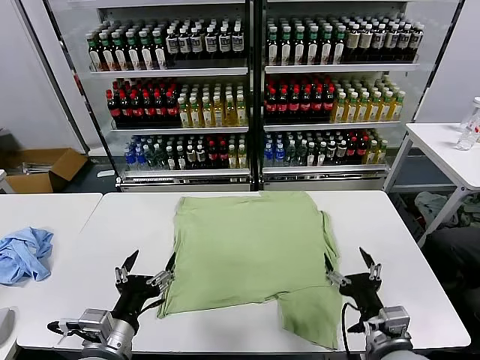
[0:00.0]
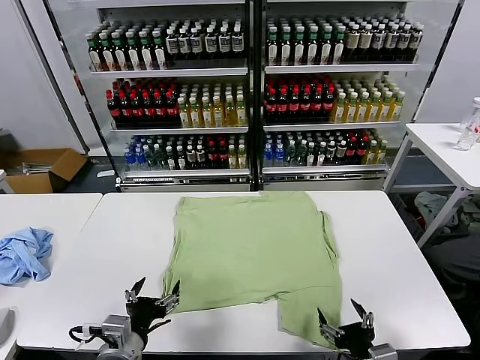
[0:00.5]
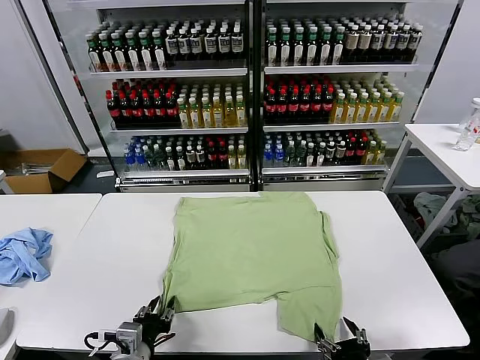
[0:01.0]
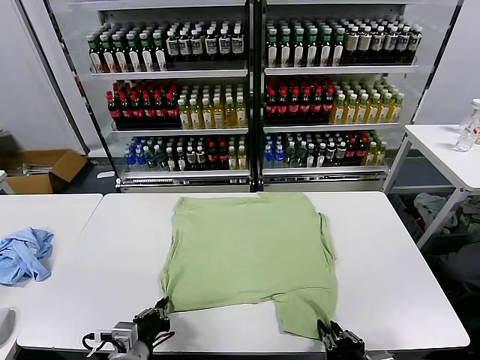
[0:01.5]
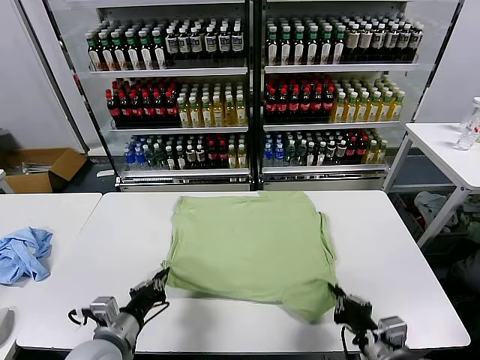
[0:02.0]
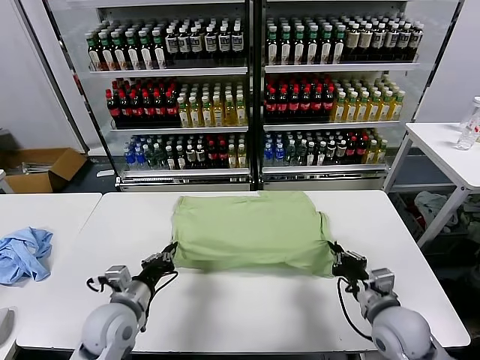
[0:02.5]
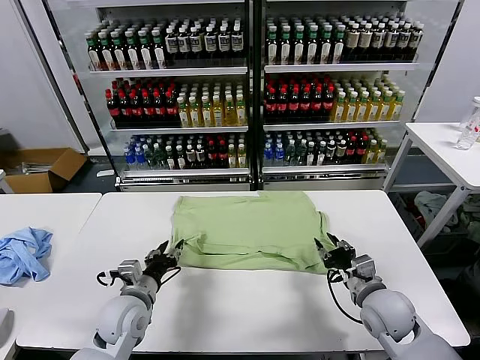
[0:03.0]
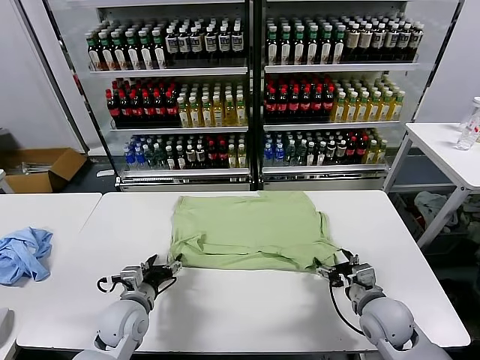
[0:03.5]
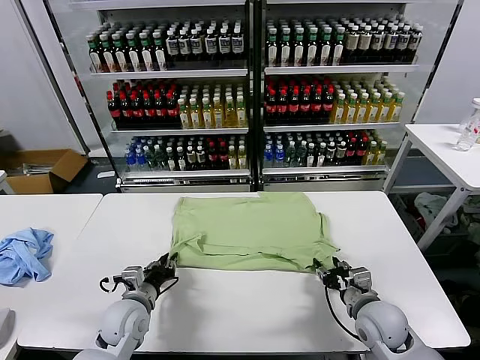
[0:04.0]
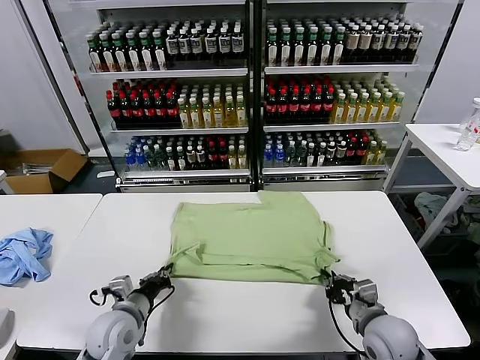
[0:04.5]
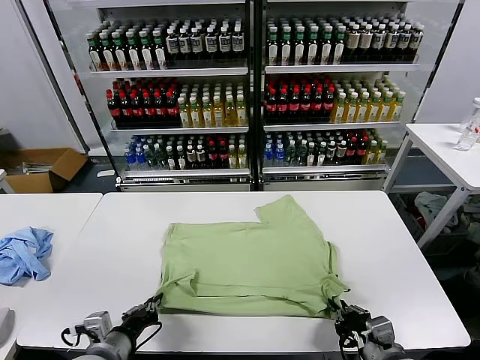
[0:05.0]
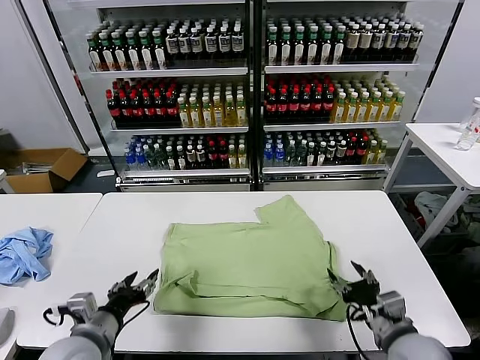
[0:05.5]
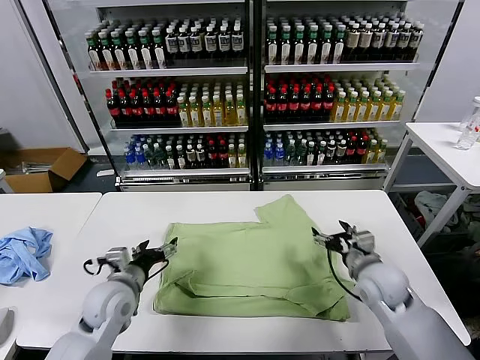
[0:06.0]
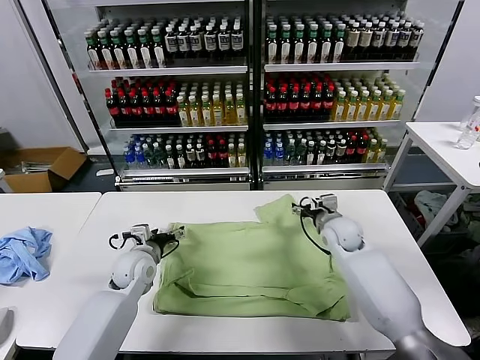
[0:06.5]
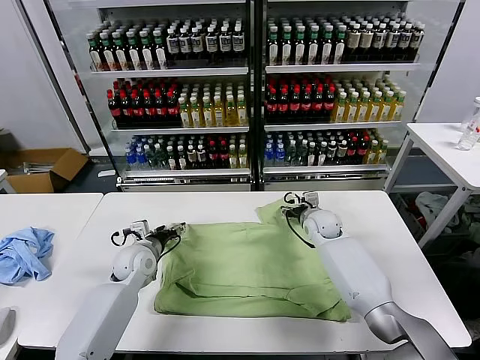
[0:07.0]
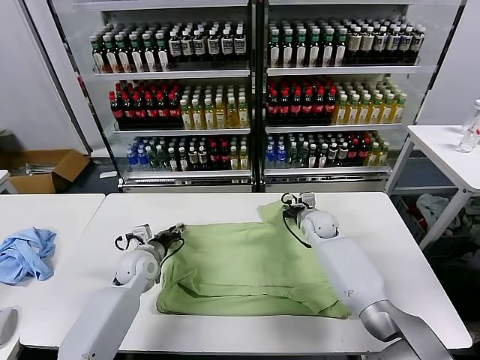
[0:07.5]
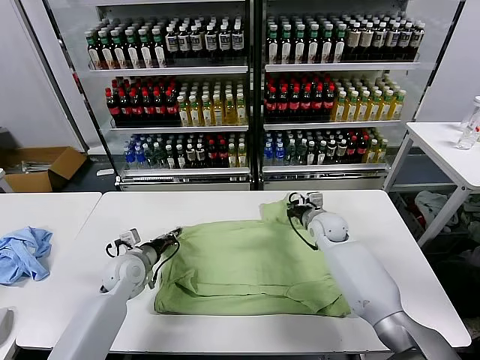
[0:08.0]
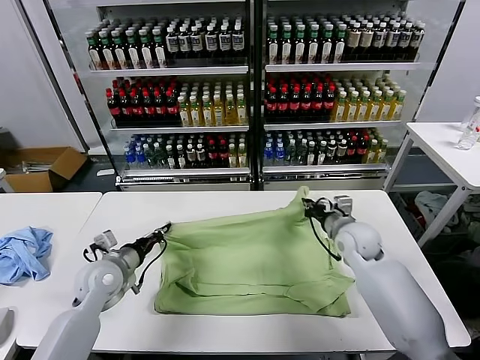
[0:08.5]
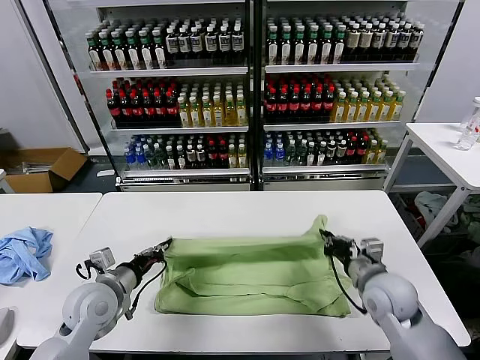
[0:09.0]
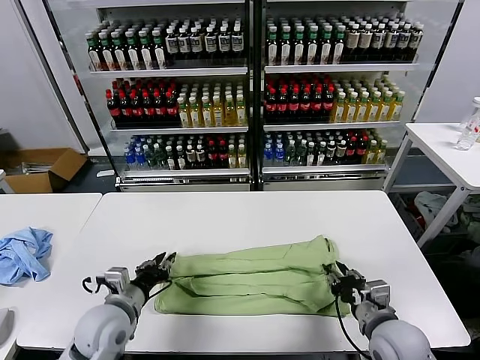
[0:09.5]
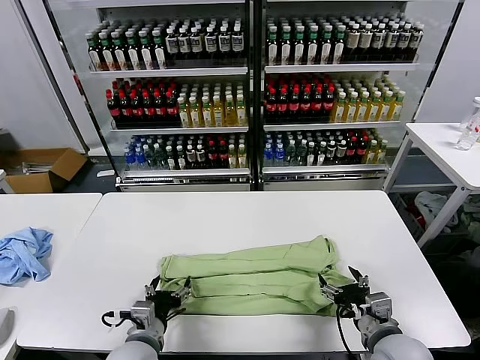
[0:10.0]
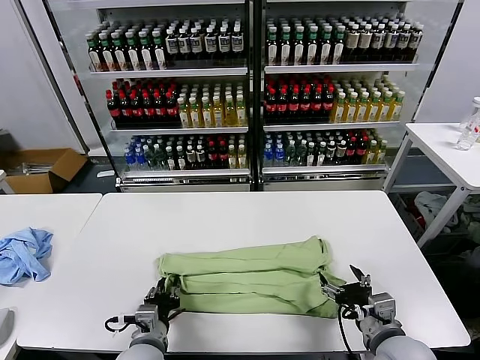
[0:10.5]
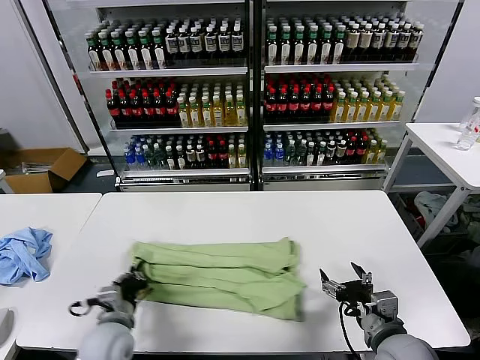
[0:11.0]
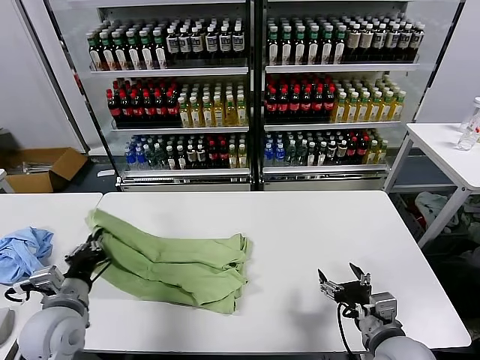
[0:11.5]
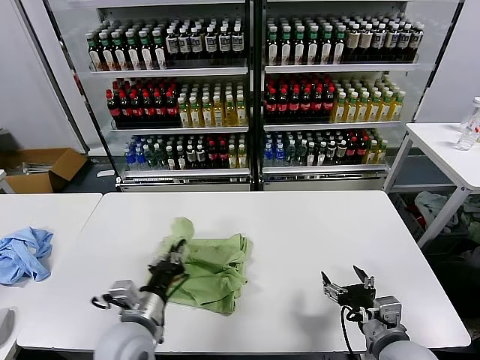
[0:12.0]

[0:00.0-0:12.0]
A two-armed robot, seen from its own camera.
Task of the whole recording: fold and organize the clothes.
Step, 0:00.0 to 0:01.5: use both grippers simultaneously to clamp the lower edge of the clothing fabric.
Step, 0:02.0 to 0:02.5: use both grippers to drag the lower edge of the fabric forward and fold it over the upper edge.
Step, 0:03.0 to 0:05.0: Drag the clothes downward with both gripper.
Step, 0:05.5 to 0:07.5: use both grippers simultaneously to clamp the upper edge of the clothing fabric.
Step, 0:08.0 to 0:09.5: use both grippers to drag the upper edge of the fabric backward and fold it over the lower edge.
Step, 0:10.0 to 0:10.5: use the left gripper to clamp the left edge of the fabric.
0:02.0 to 0:04.0: The two grippers go some 10 cm forward and downward. The right gripper opens; the left gripper opens, then closes once more.
0:04.0 to 0:06.0: The right gripper travels forward and upward by approximately 10 cm, and opens up; the left gripper heads upward, covering about 5 cm, moves roughly 15 cm backward and comes back, and opens its fingers.
0:06.0 to 0:08.0: The left gripper moves forward, approximately 10 cm, and closes its fingers. Meanwhile the right gripper moves forward, about 15 cm, and closes up.
0:08.0 to 0:10.0: The right gripper heads backward, covering roughly 30 cm, and opens up; the left gripper travels backward and to the right by about 20 cm, and opens up.
0:10.0 to 0:12.0: The left gripper is displaced upward by about 5 cm, travels to the left and back again, about 15 cm each way, and closes its fingers.

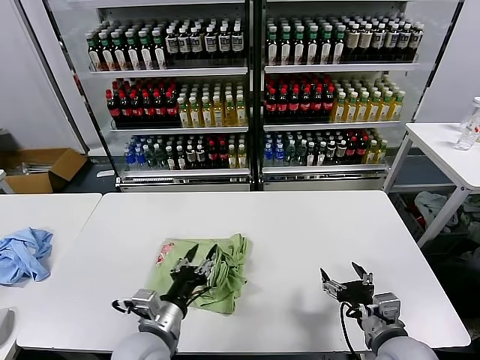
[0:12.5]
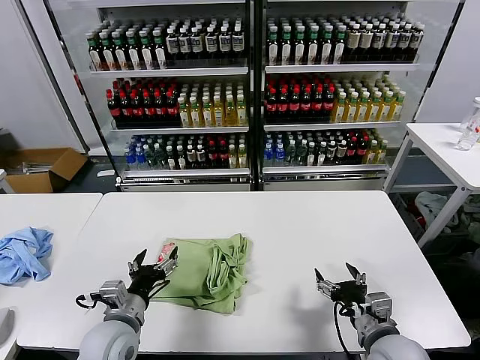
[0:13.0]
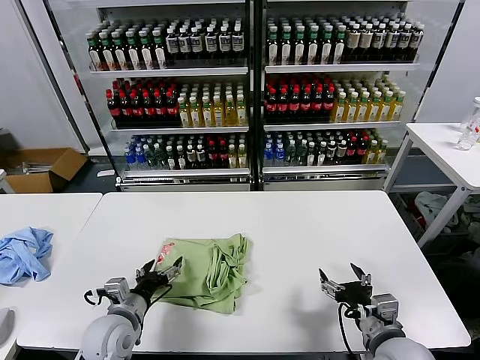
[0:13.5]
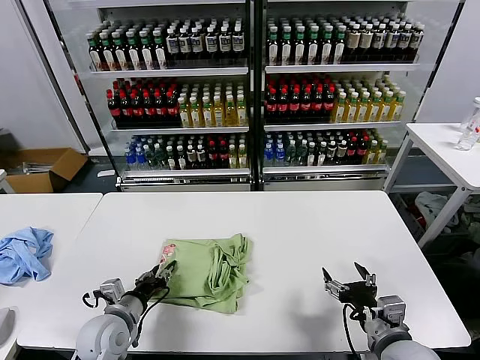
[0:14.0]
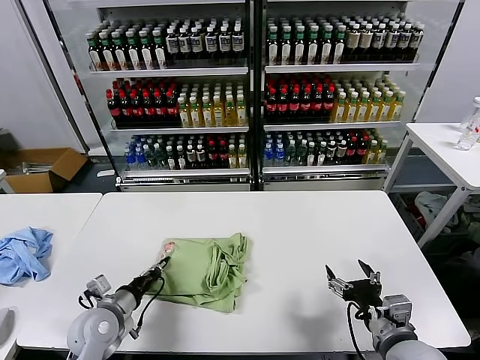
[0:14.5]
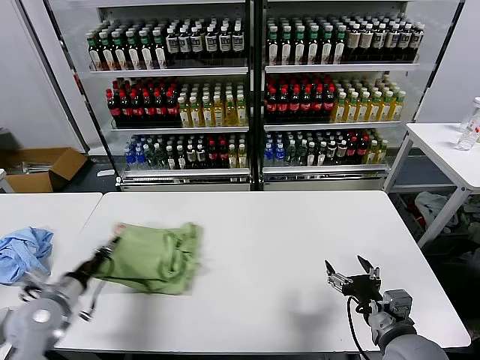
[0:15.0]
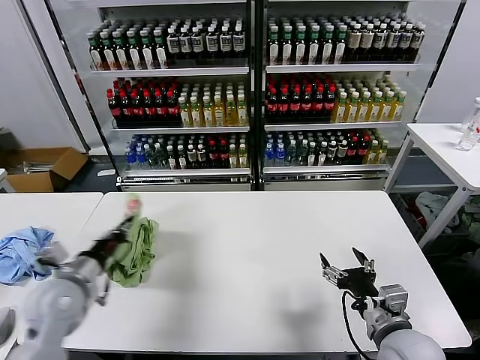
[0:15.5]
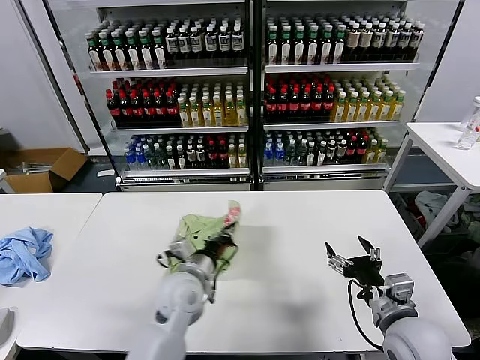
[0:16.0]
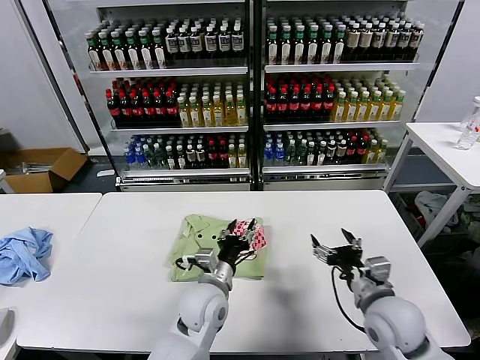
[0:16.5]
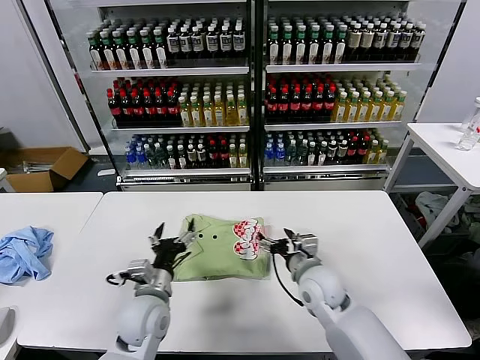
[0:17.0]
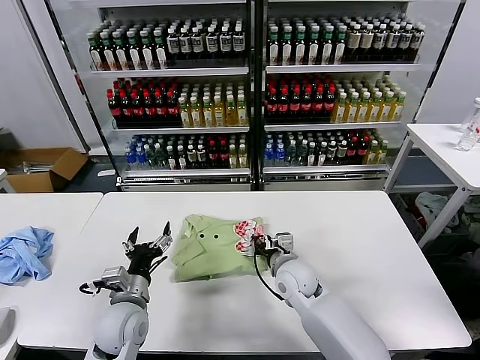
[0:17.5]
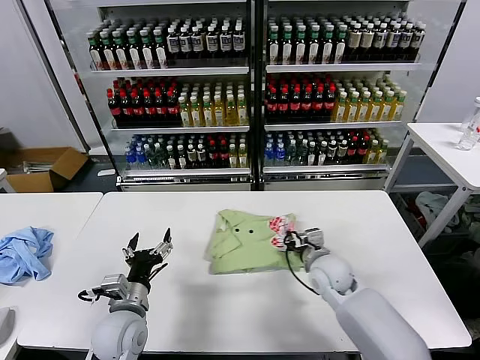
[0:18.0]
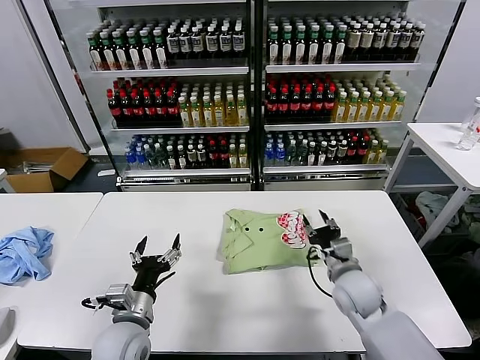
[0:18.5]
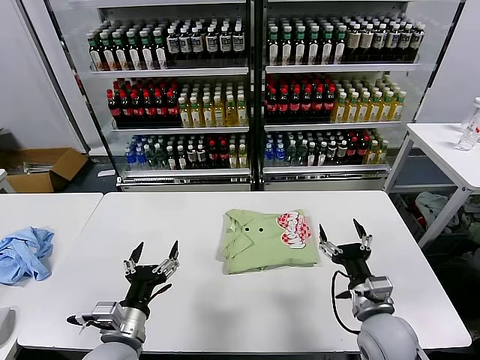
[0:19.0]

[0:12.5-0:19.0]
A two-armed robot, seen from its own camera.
Task of the whole recording: fold and organize the clothes.
Step, 0:12.5 to 0:16.0: Flip the folded clothes over with left gripper.
Step, 0:16.5 to 0:18.0: Drag the clothes to the center of the table.
0:12.5 to 0:14.5: The left gripper heads to the left, forward and downward, covering roughly 15 cm, and closes up.
0:14.5 to 0:17.0: The right gripper goes roughly 20 cm forward and to the left; the left gripper goes left and right, about 35 cm each way, reversing 2 times, and opens up.
0:17.0 to 0:19.0: The right gripper travels backward and to the right by roughly 15 cm, and closes and opens again, while the left gripper shifts some 10 cm backward.

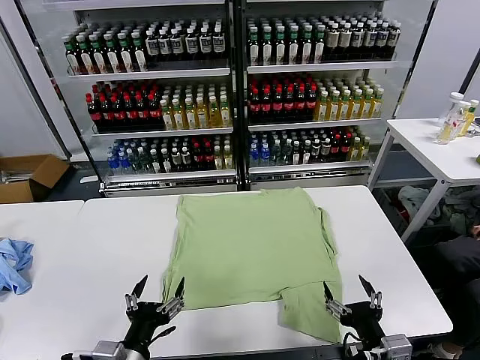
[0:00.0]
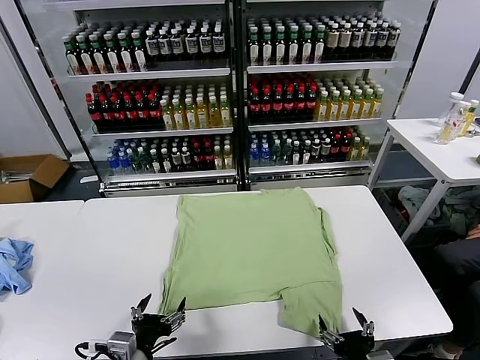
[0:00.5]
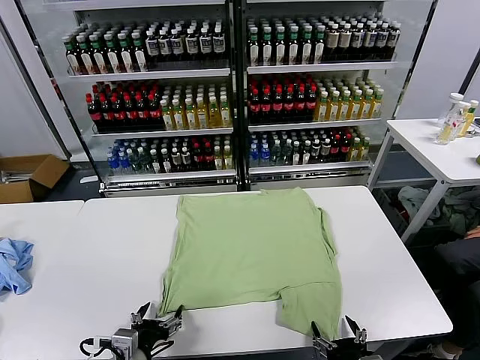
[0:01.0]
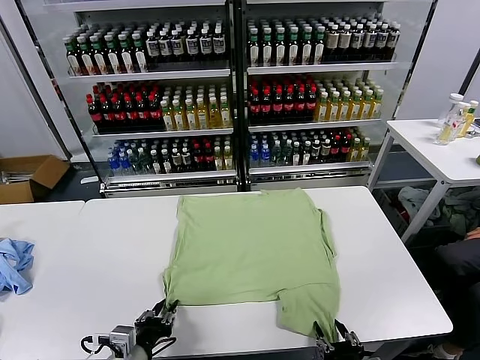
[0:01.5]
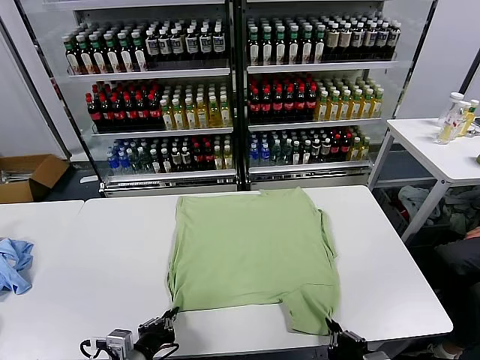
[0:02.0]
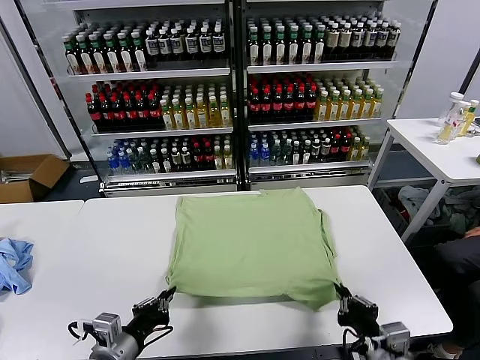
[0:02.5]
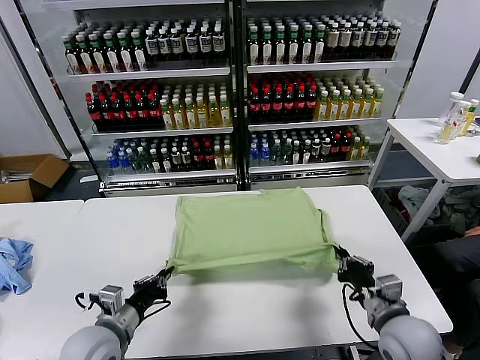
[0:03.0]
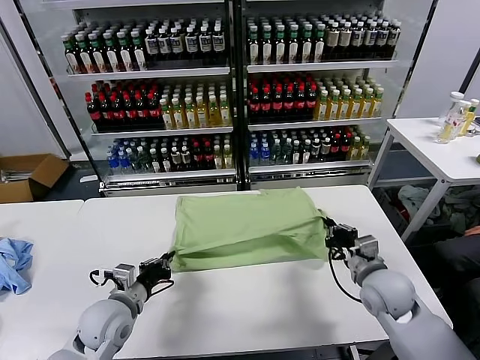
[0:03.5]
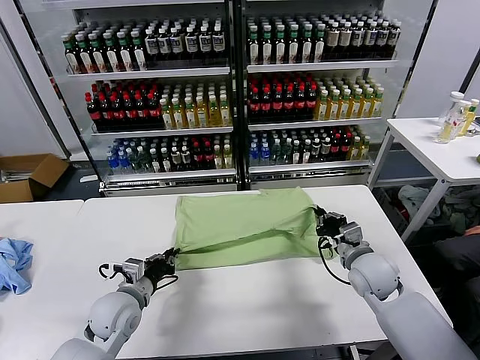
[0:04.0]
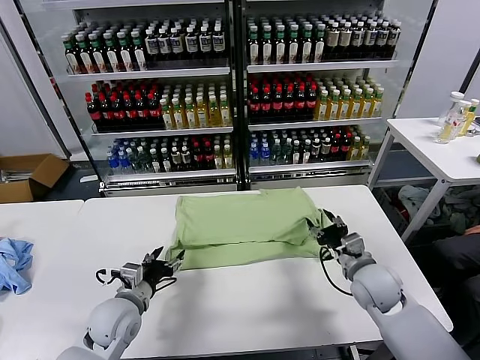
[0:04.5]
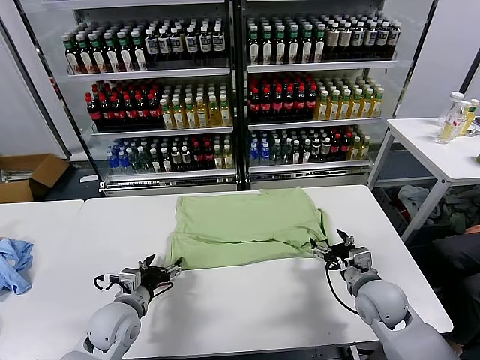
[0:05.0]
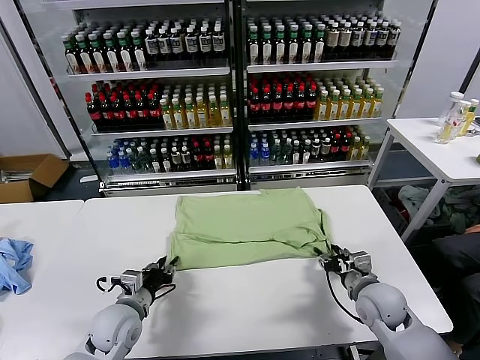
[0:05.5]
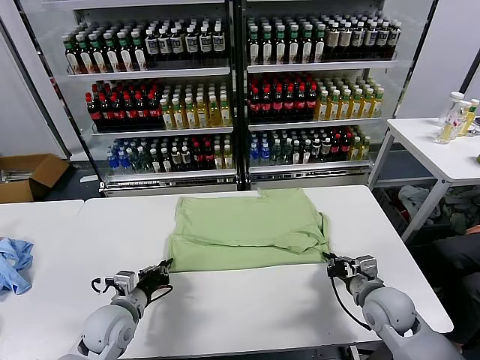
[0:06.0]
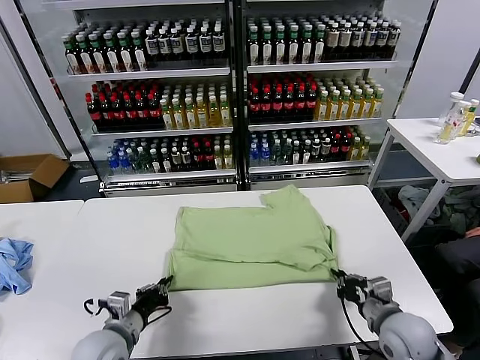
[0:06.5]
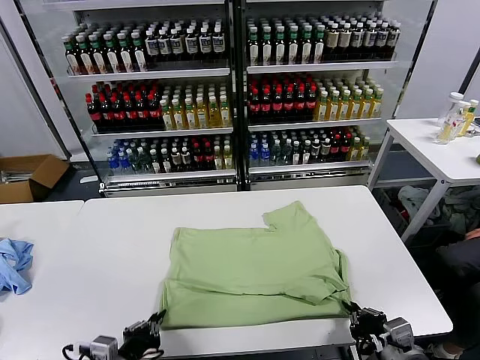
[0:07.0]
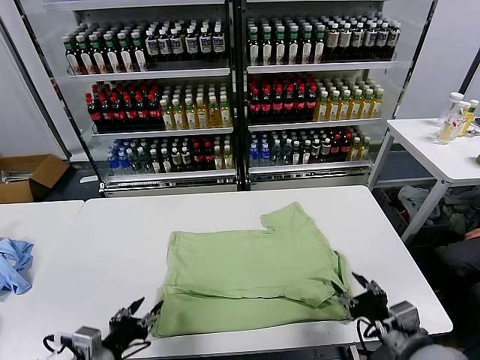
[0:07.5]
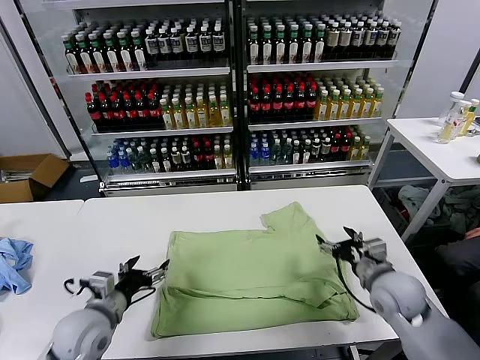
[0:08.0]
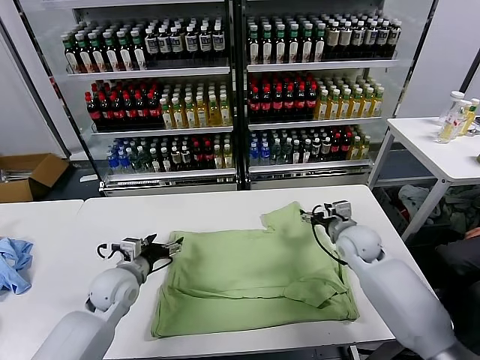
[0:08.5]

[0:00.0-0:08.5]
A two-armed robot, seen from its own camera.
Task of the whole recording: fold and organize the clothes.
Step, 0:00.0 to 0:02.0: use both grippers simultaneously to clamp the lower edge of the clothing fabric.
Step, 0:02.5 to 0:04.5: use both grippers to drag the lower edge of the fabric forward and fold it over the upper edge.
Step, 0:05.0 to 0:07.0: Drag the clothes downward with both gripper.
0:02.0 to 0:04.0: The right gripper moves forward, some 25 cm; the left gripper travels forward by roughly 15 cm.
0:04.0 to 0:06.5: The right gripper travels backward by roughly 15 cm, and opens, then closes once more; the left gripper moves backward, approximately 10 cm, and opens and closes again.
0:06.5 to 0:08.5: The right gripper moves forward, about 20 cm, and opens. The left gripper is displaced forward by approximately 15 cm, and opens up.
